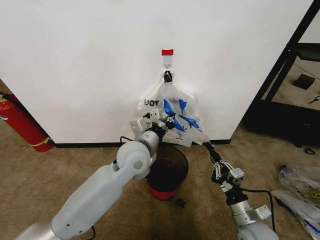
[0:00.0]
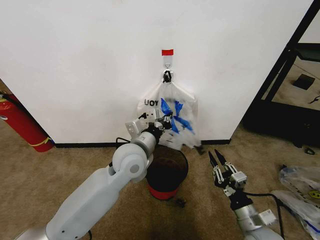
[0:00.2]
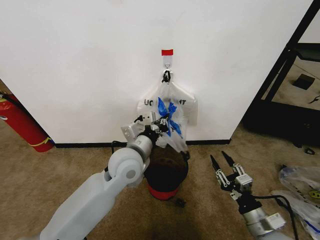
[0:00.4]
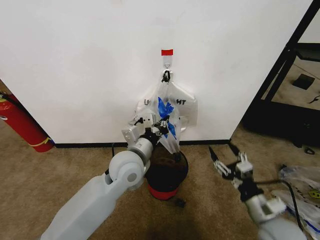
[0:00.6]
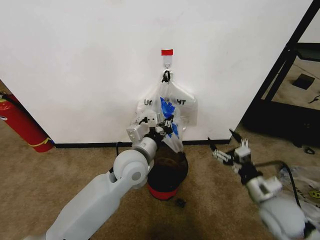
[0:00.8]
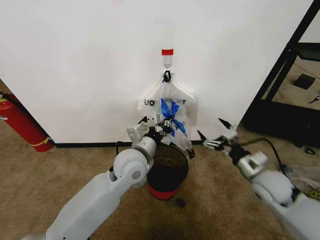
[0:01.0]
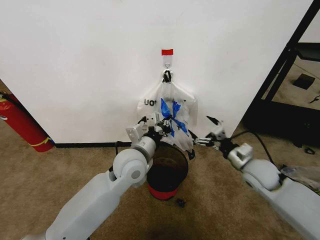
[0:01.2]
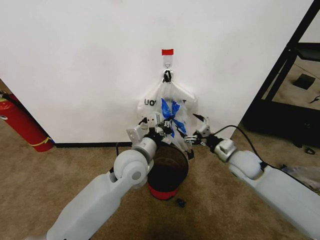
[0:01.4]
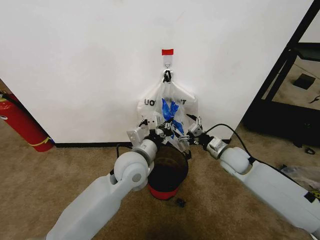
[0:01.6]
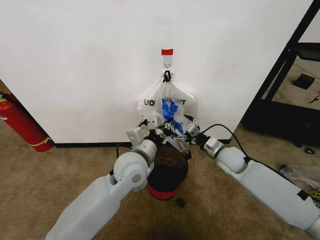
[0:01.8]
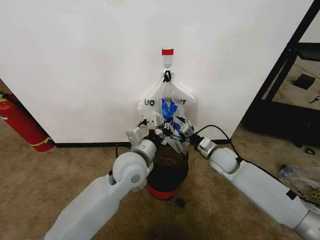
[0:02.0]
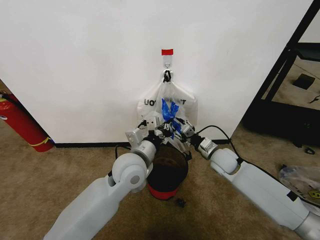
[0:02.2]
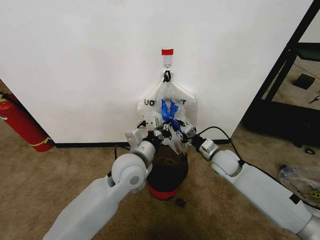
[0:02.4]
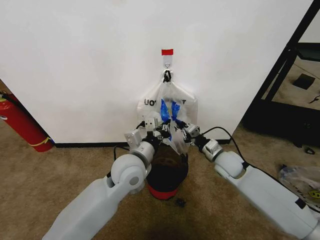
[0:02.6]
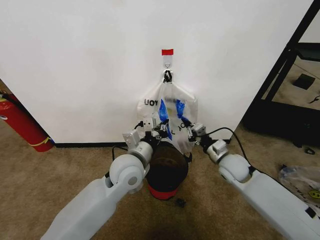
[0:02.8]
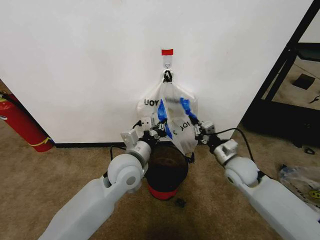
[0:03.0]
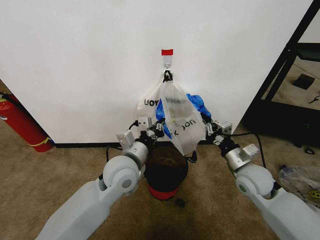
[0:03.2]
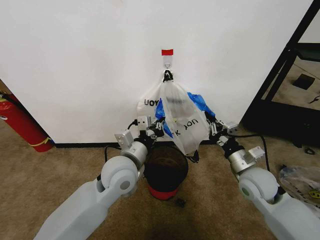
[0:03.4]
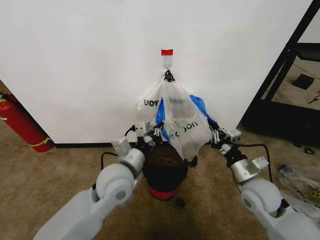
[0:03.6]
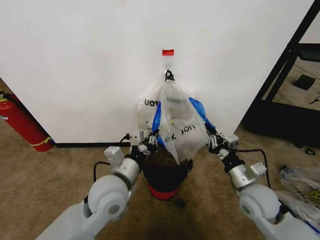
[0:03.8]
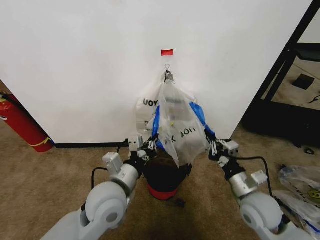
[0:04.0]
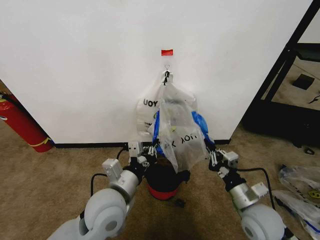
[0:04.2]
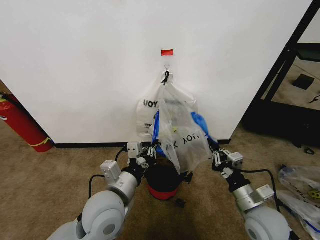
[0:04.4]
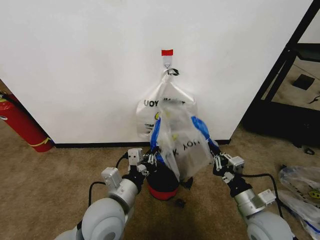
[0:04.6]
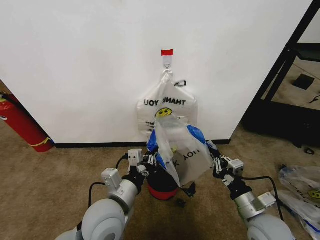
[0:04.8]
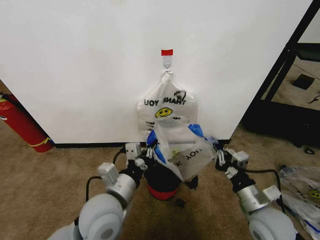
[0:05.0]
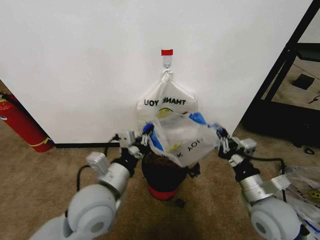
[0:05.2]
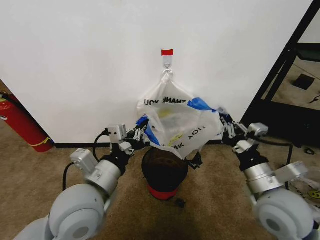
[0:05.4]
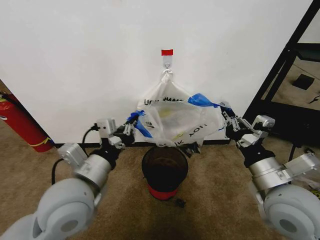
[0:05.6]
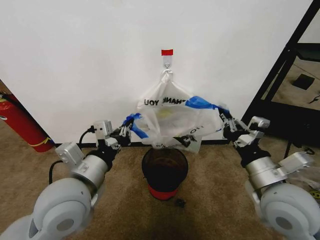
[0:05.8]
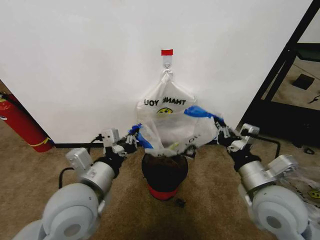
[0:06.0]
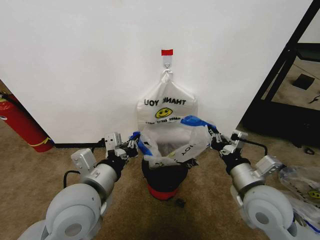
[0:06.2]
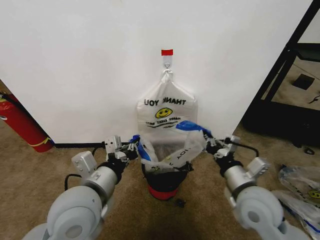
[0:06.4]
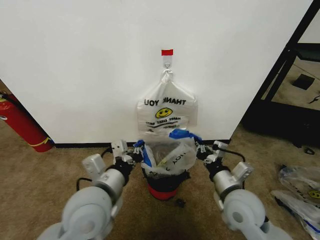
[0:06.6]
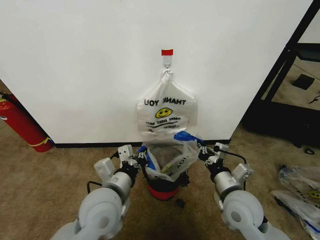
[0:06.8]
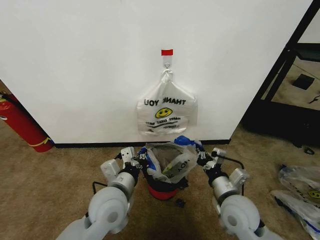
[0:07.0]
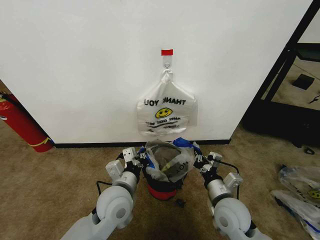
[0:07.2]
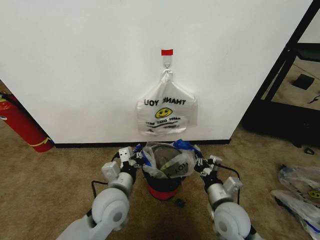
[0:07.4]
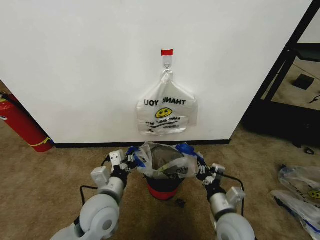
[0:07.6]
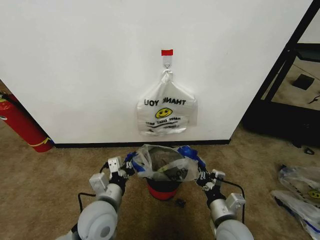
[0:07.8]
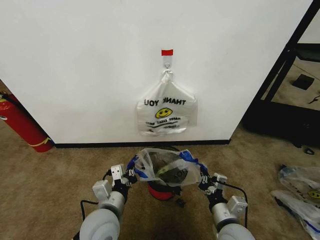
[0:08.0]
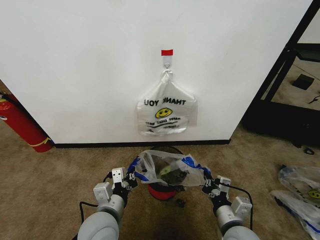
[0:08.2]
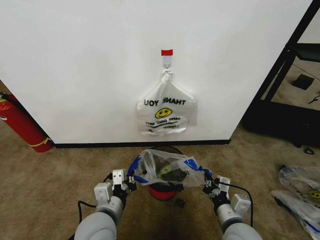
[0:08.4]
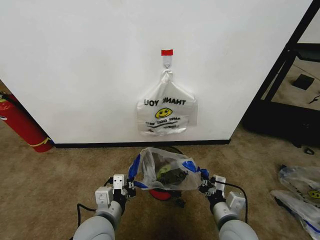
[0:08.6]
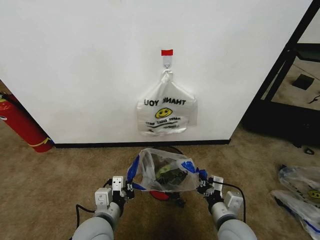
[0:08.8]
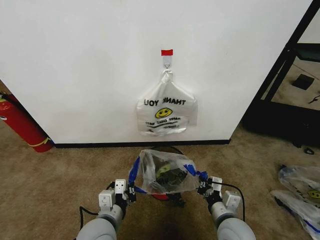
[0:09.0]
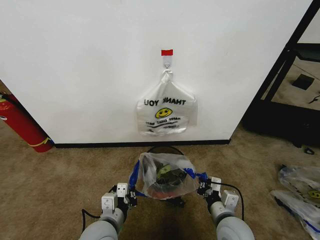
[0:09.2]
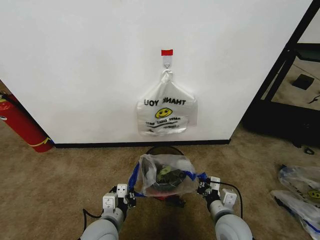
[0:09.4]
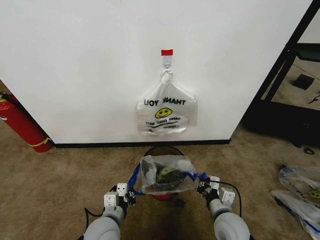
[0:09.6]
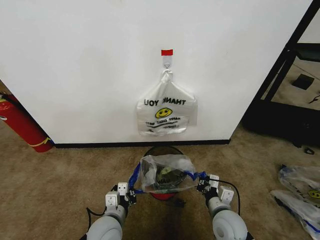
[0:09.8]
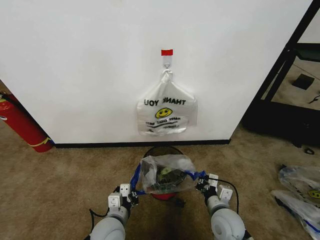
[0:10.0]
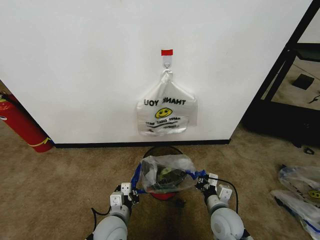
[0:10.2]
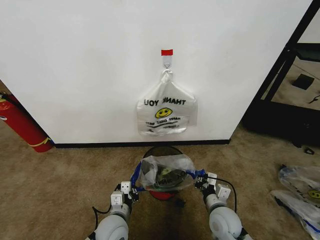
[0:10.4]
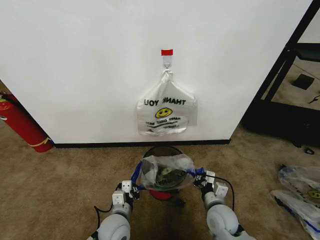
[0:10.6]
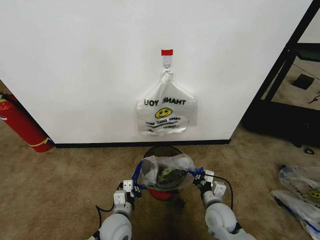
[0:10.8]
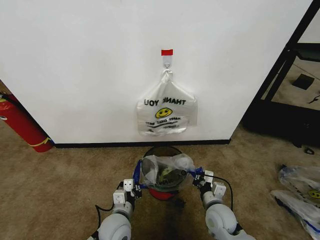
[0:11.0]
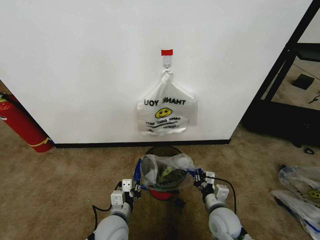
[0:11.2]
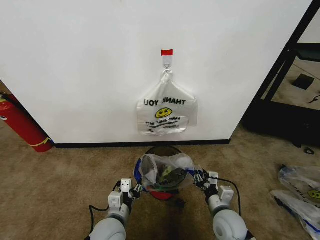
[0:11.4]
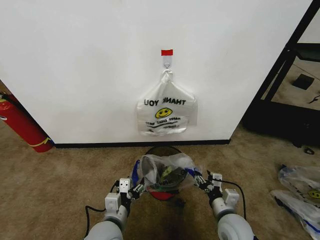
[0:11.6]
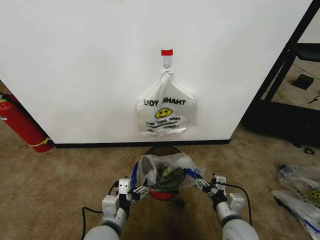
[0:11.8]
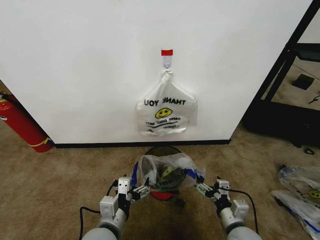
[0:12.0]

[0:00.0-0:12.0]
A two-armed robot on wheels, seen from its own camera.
Task of the whole recording: Pick up the garbage bag from the wall and place it over the trash bin.
0:00.0 to 0:01.6: The right gripper is displaced forward by approximately 20 cm, and opens.
0:01.6 to 0:03.0: The right gripper closes up.
0:03.0 to 0:04.4: The grippers both shift backward by about 15 cm.
0:04.4 to 0:06.0: The left gripper goes some 5 cm upward. The right gripper heads upward, covering approximately 10 cm.
0:06.0 to 0:07.6: Both grippers move downward, roughly 15 cm.
0:07.6 to 0:09.0: The left gripper goes roughly 5 cm backward.
0:09.0 to 0:10.4: The right gripper is displaced downward by approximately 5 cm. Meanwhile the left gripper goes about 10 cm downward.
0:10.4 to 0:12.0: The right gripper travels backward by approximately 5 cm, and opens. Meanwhile the left gripper goes some 10 cm upward and backward, and opens.

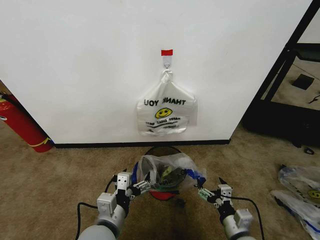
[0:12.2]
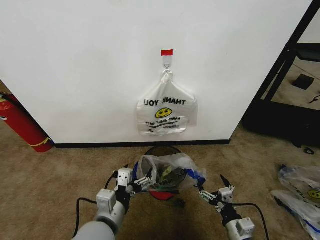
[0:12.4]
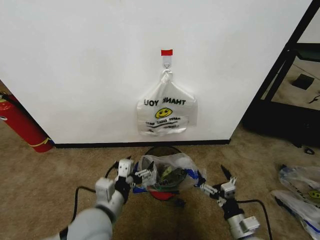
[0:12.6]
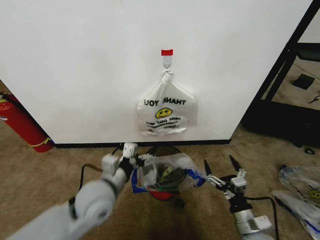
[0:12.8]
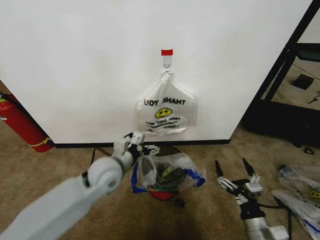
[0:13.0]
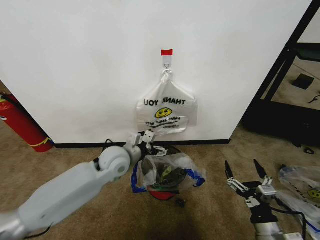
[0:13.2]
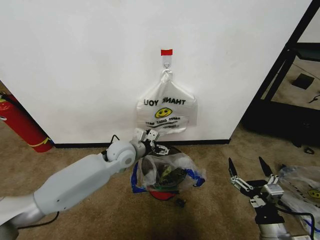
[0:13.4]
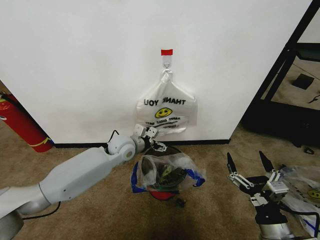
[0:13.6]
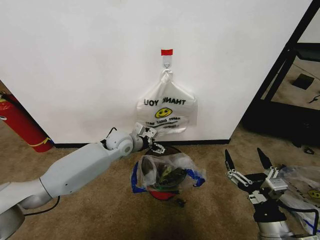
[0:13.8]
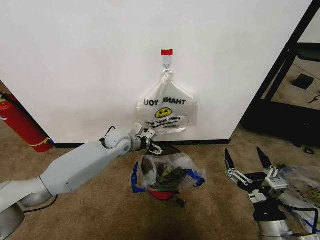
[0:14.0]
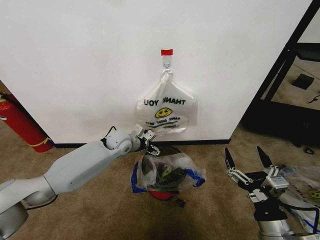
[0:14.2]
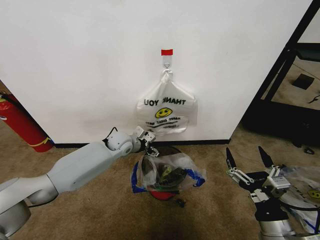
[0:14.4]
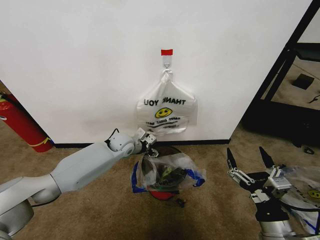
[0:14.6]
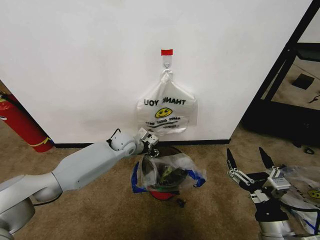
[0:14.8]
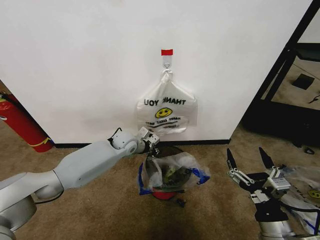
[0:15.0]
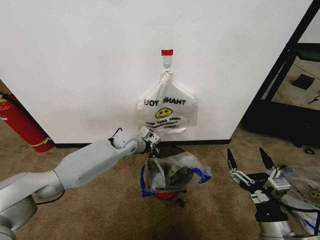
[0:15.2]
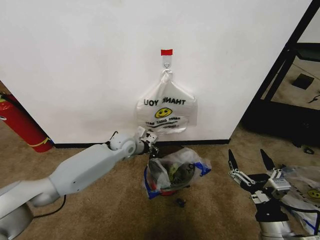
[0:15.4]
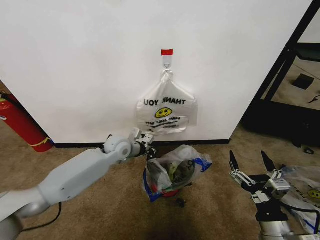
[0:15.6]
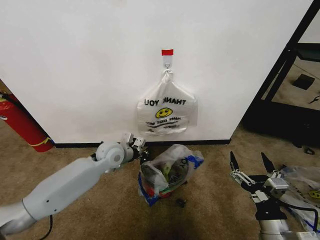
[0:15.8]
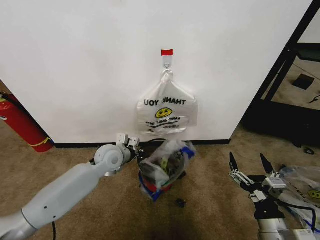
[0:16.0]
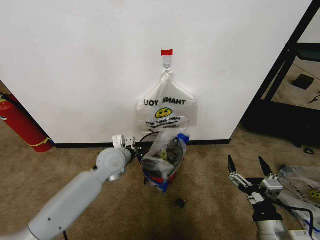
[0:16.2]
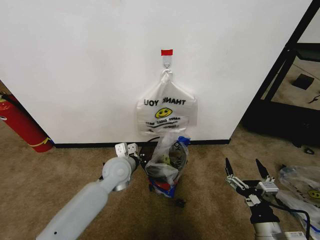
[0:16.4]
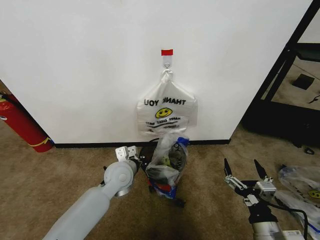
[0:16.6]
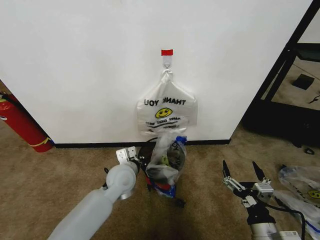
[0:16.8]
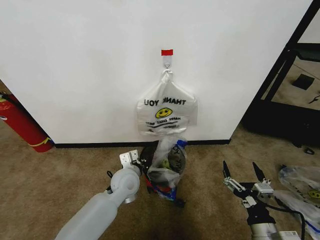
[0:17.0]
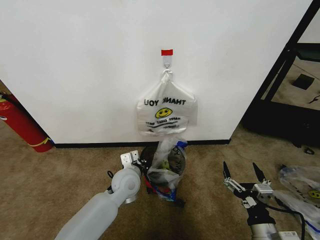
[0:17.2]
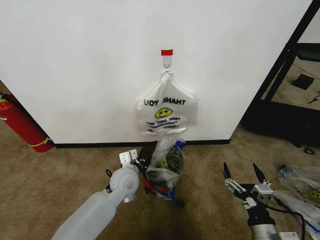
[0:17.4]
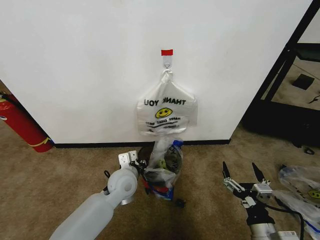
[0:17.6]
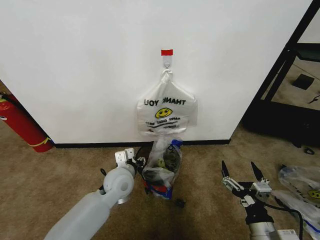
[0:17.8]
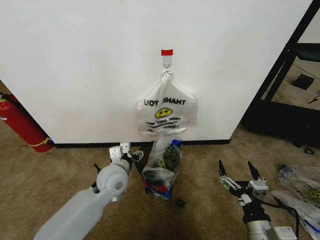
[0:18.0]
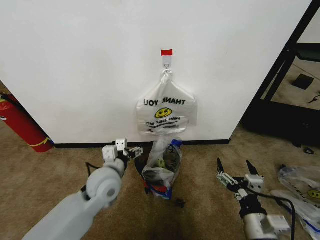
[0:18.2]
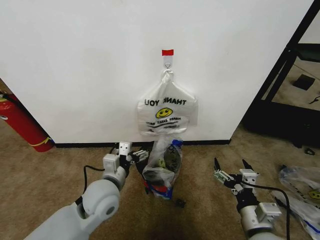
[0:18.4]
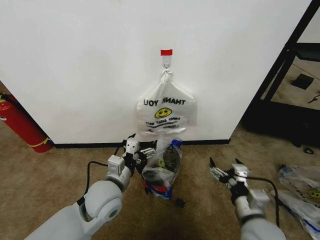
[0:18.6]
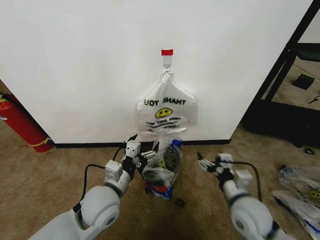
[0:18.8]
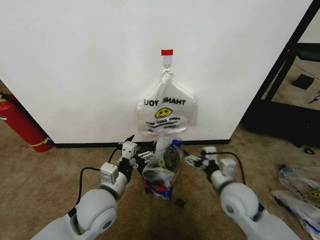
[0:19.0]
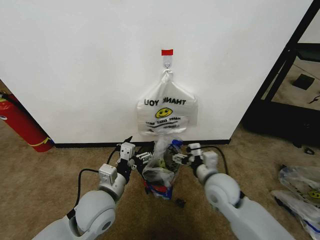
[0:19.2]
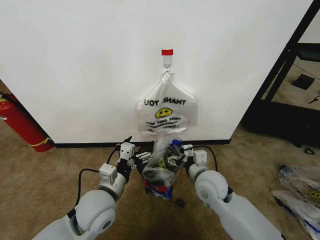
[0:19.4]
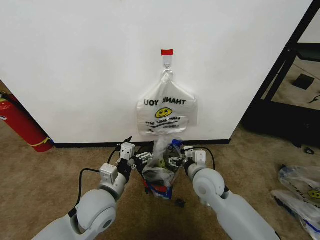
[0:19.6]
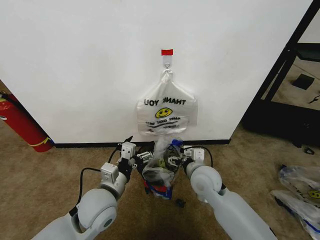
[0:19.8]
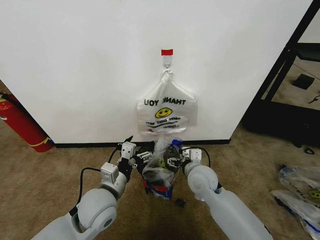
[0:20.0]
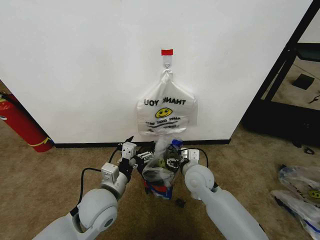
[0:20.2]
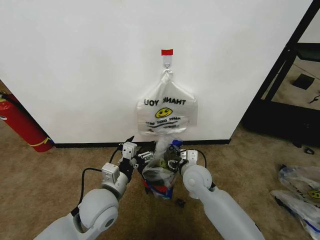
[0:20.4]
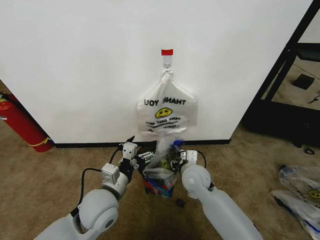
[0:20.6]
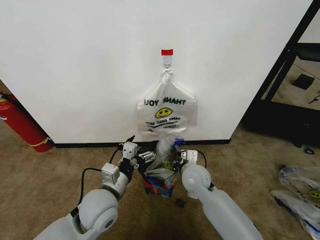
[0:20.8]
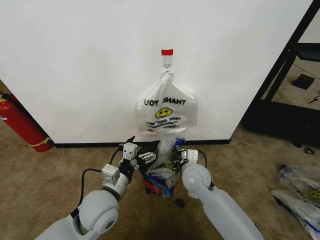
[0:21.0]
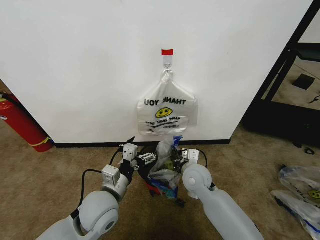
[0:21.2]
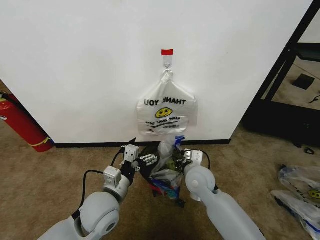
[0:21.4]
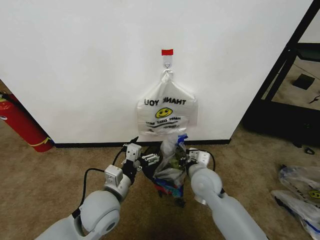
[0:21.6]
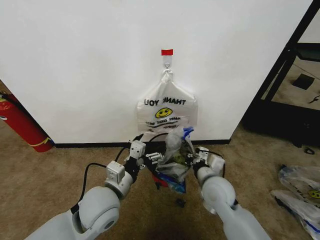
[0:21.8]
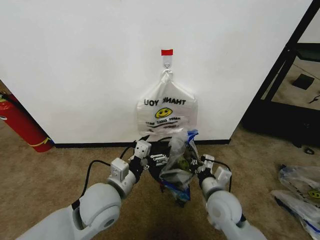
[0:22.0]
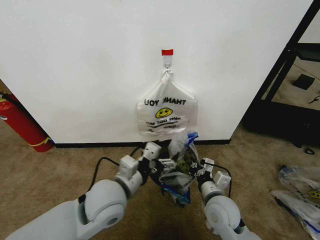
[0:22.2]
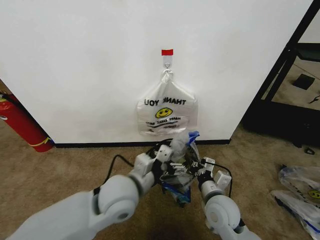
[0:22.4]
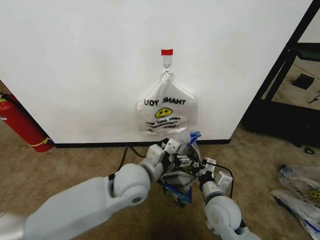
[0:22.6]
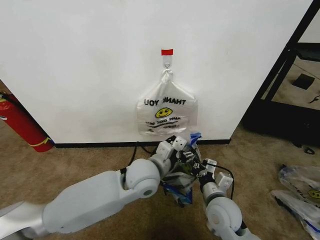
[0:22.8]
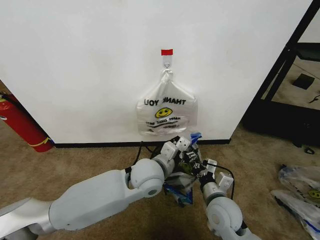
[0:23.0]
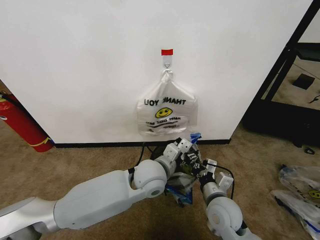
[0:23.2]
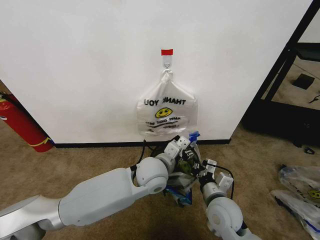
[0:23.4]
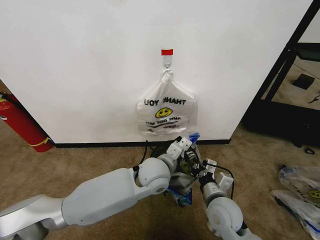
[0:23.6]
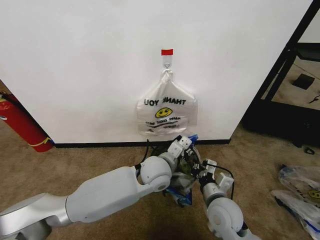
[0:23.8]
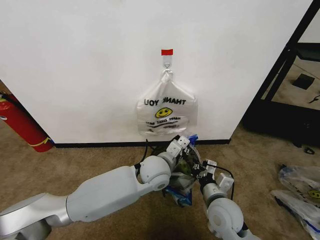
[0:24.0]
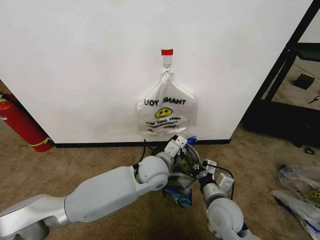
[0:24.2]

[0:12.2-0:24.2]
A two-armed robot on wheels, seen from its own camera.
Task of the whole recording: Pick up the garbage bag from the wall and place it over the trash bin.
0:12.2 to 0:13.8: The left gripper shifts about 30 cm forward. Meanwhile the right gripper shifts roughly 10 cm upward.
0:13.8 to 0:15.2: The left gripper closes its fingers.
0:15.2 to 0:16.6: The left gripper heads backward, covering some 15 cm.
0:16.6 to 0:18.2: The left gripper moves backward, some 5 cm, and opens its fingers.
0:18.2 to 0:19.8: The right gripper is displaced forward and to the left by about 25 cm. Meanwhile the left gripper goes approximately 5 cm backward.
0:19.8 to 0:21.2: The right gripper closes.
0:21.2 to 0:22.6: The right gripper is displaced backward and to the right by approximately 10 cm, while the left gripper shifts some 10 cm to the right and upward.
0:22.6 to 0:24.2: The left gripper shifts about 10 cm forward and to the right, and closes its fingers.
